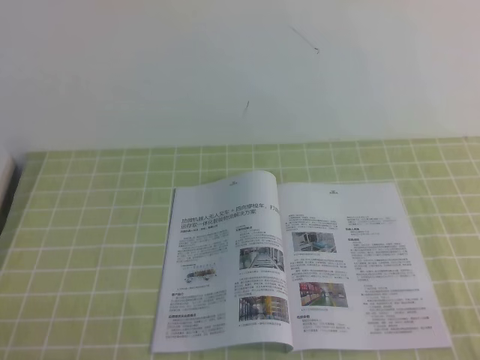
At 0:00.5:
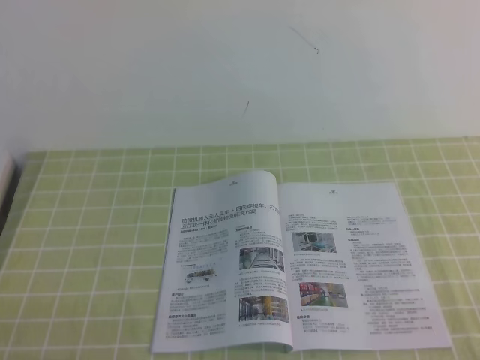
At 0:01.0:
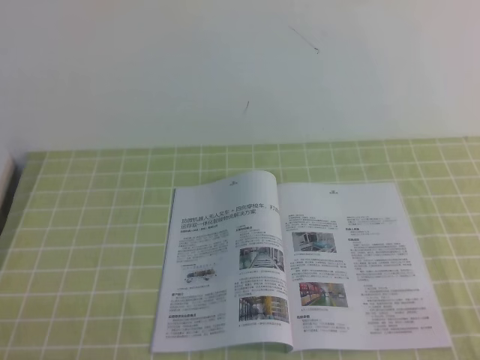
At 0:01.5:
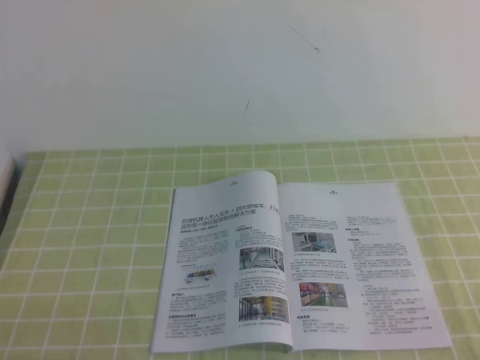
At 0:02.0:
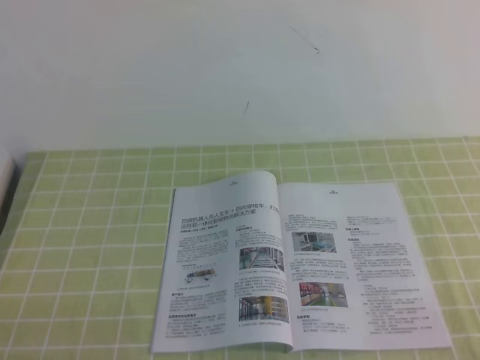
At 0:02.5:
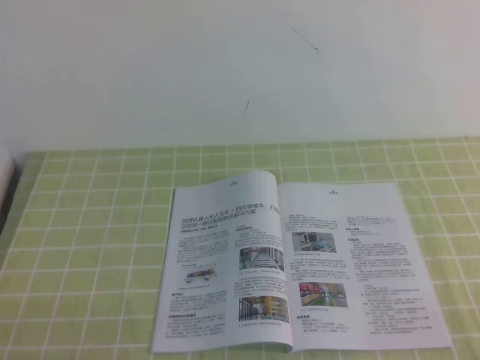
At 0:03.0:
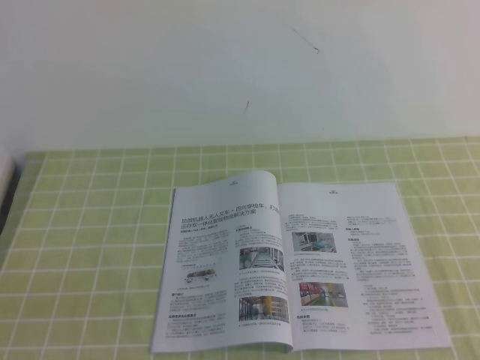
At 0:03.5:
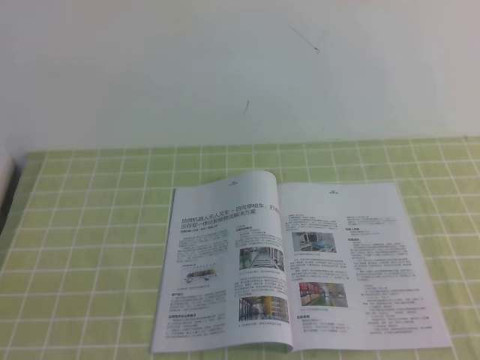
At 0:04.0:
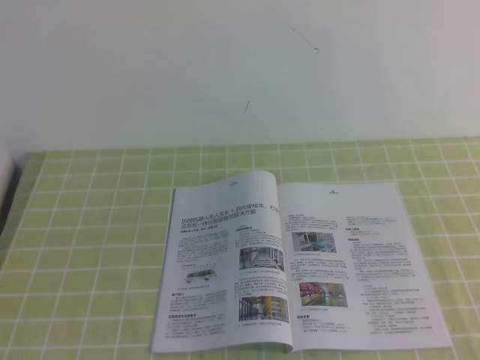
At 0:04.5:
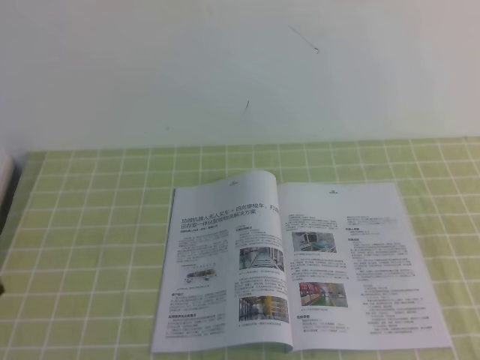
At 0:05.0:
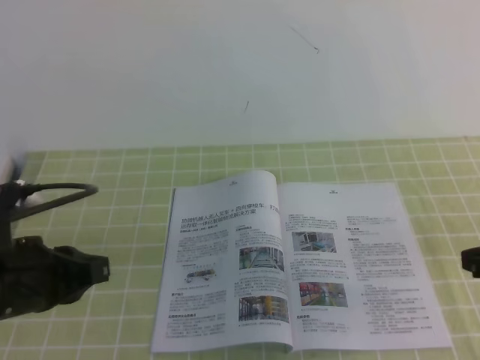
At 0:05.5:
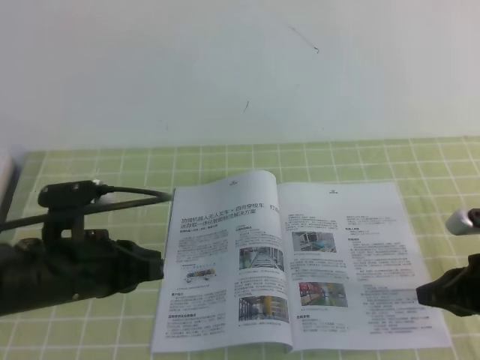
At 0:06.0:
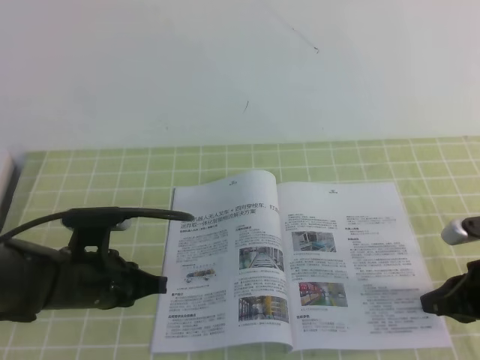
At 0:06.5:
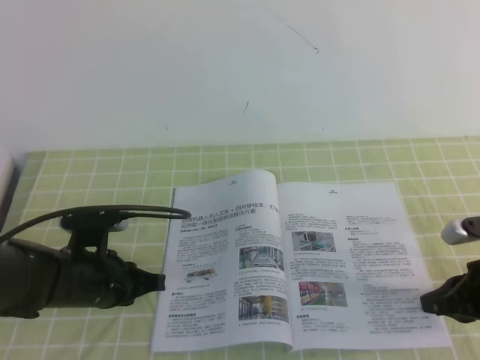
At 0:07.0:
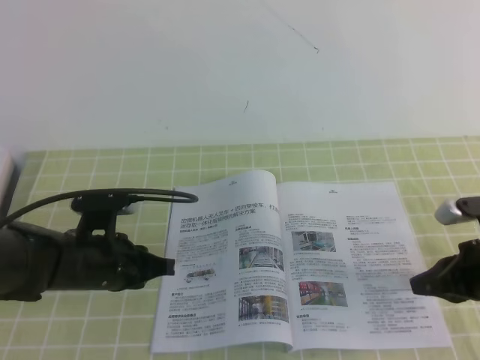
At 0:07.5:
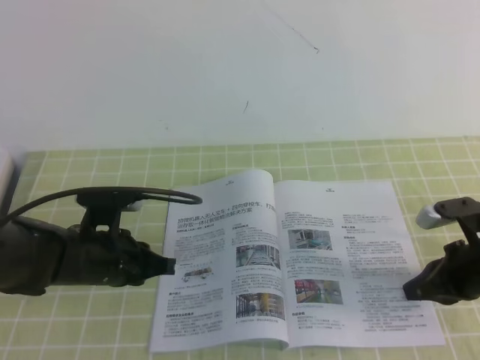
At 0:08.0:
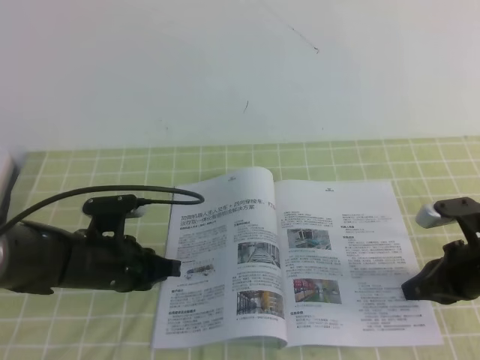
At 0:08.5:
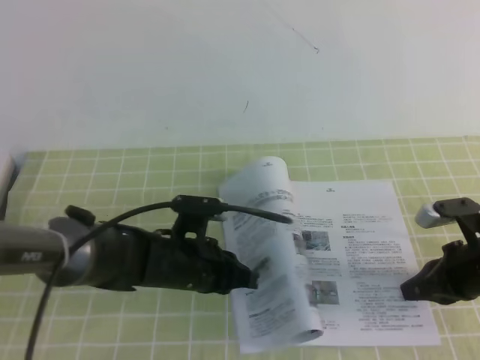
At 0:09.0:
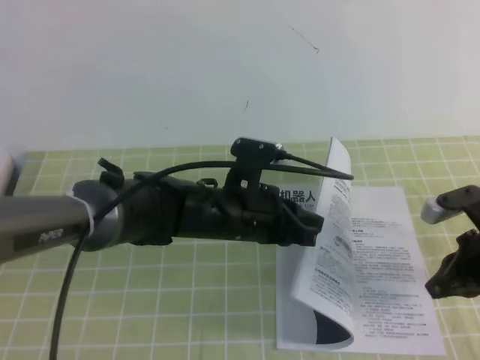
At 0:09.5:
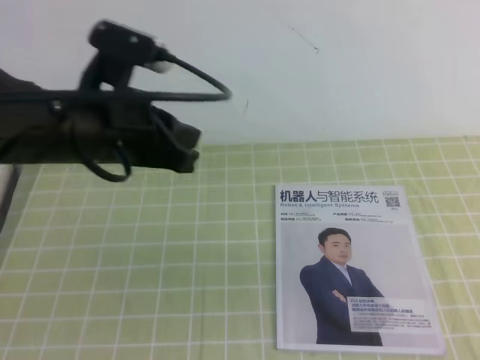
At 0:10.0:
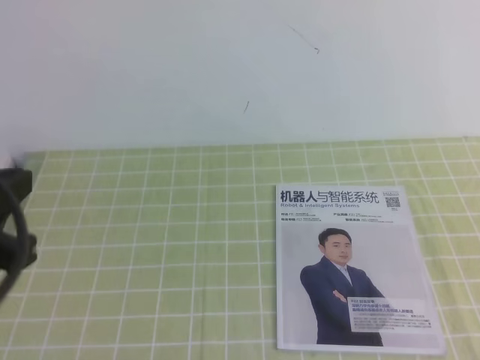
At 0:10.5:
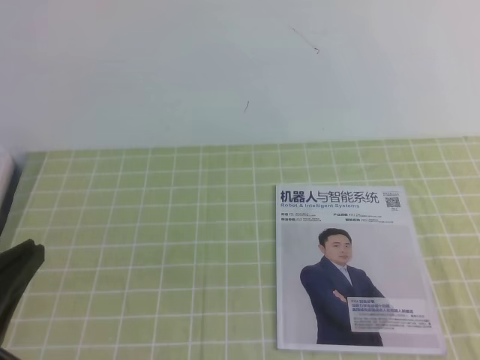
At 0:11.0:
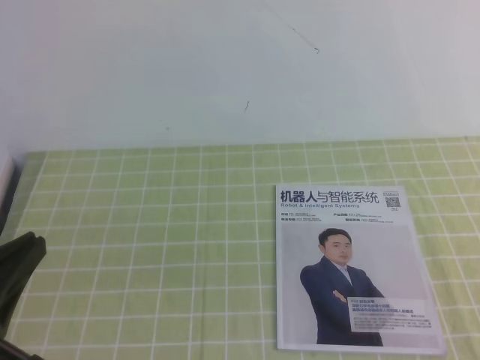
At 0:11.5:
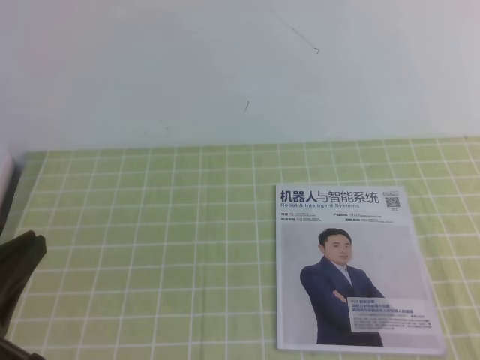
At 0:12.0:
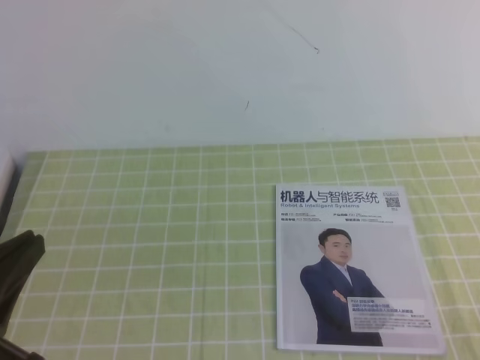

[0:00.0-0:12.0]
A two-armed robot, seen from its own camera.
Task of the whole recording: on the green tablecloth, hold the book with one hand and close it with the other.
0:04.0 to 0:06.0: The right gripper goes roughly 35 cm downward and forward. The left gripper shifts some 35 cm forward and downward.
0:06.0 to 0:08.0: The grippers make only small movements.
0:08.0 to 0:10.0: Both grippers move upward and backward, some 30 cm.
0:10.0 to 0:12.0: The left gripper is displaced backward and downward by roughly 10 cm.

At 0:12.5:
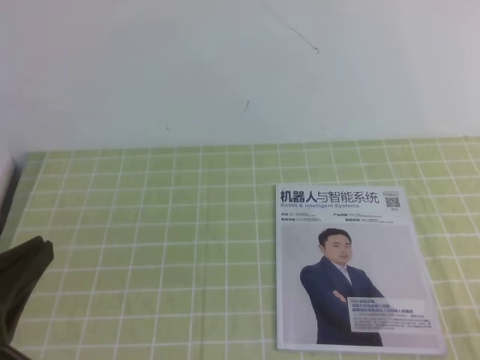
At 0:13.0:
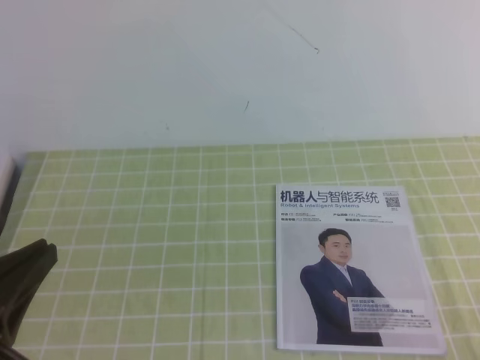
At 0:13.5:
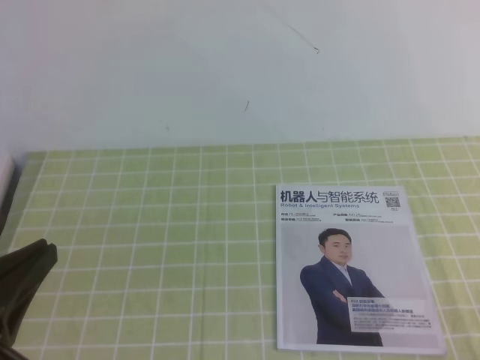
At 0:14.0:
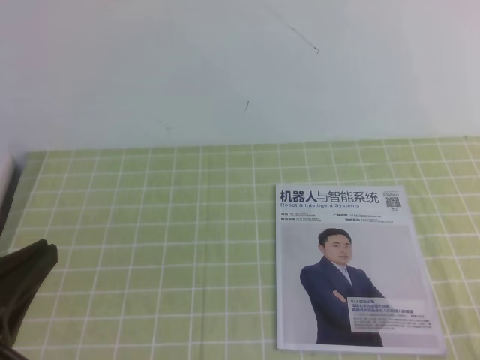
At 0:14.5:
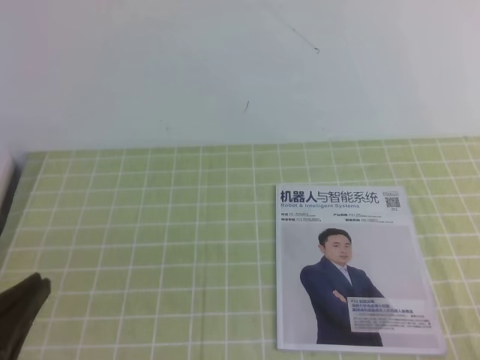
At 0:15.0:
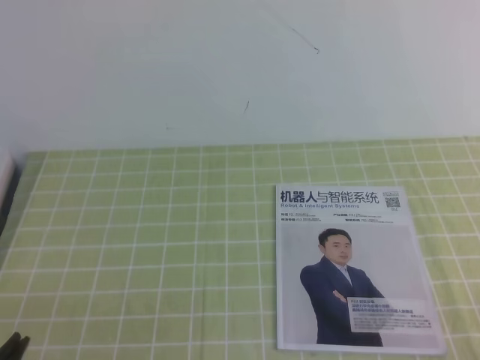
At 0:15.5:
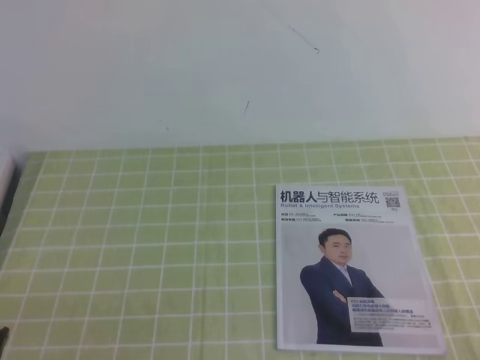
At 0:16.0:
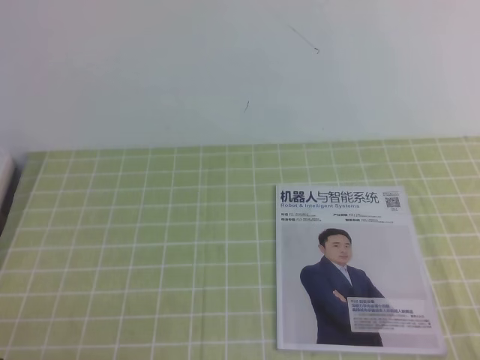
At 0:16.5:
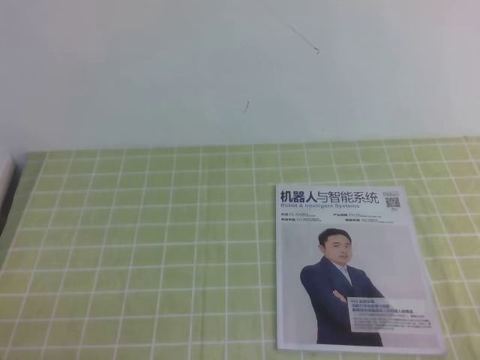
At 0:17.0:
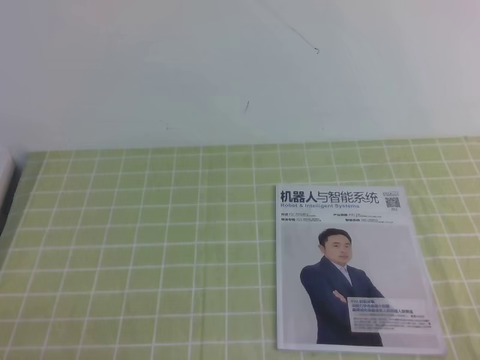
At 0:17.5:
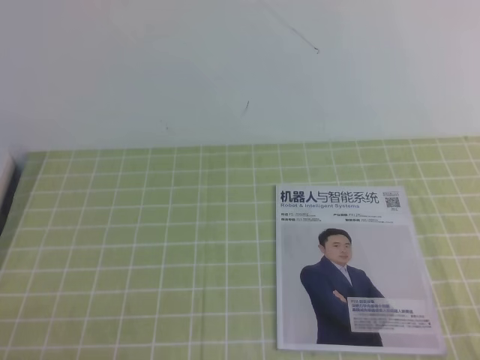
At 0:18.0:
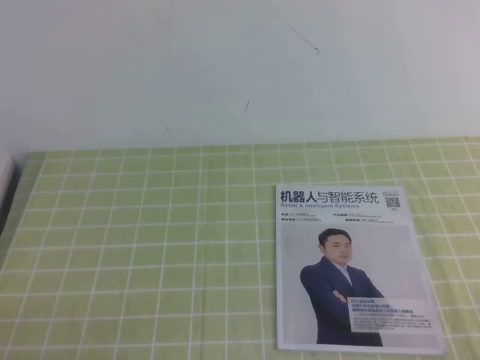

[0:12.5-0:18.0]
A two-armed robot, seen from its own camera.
Task of the whole recording: on the green tablecloth, hold the book with one hand and close it with the other.
Step, 0:12.5 to 0:18.0: Close the open book.
0:14.5 to 0:16.0: The left gripper goes approximately 10 cm downward.
